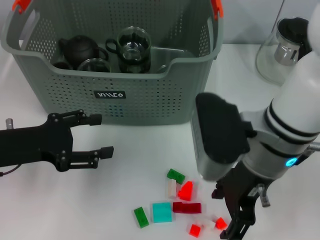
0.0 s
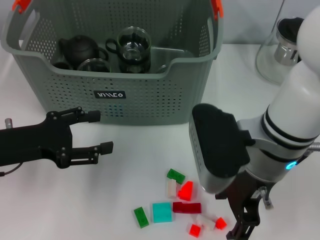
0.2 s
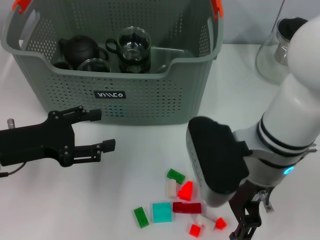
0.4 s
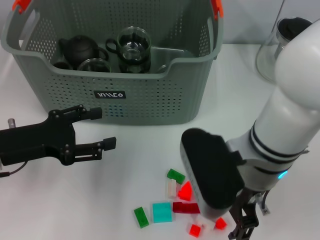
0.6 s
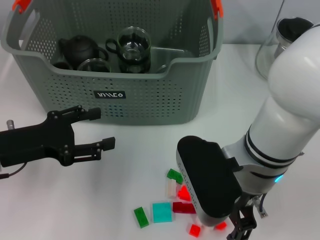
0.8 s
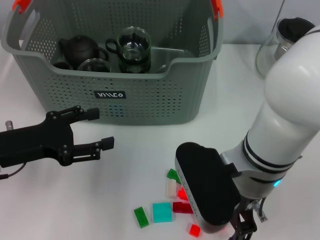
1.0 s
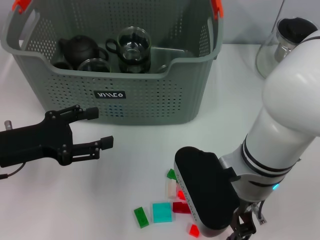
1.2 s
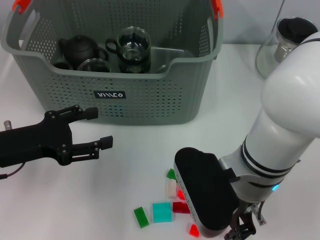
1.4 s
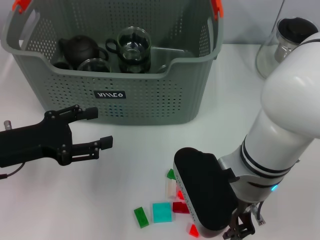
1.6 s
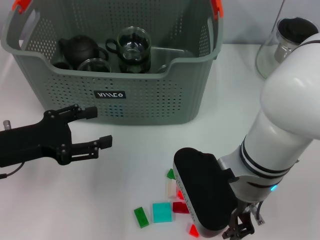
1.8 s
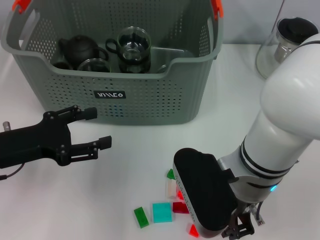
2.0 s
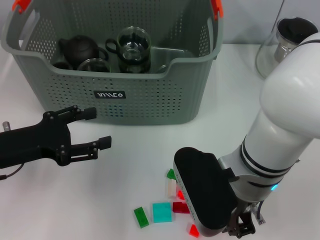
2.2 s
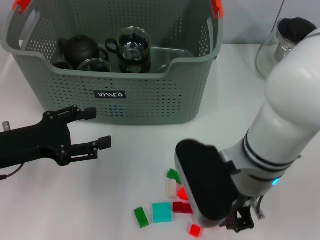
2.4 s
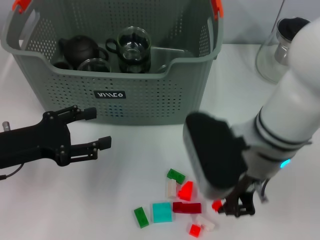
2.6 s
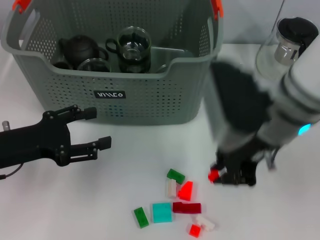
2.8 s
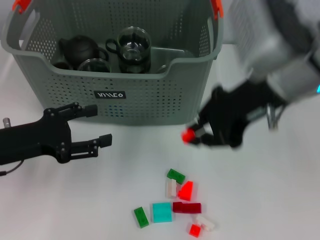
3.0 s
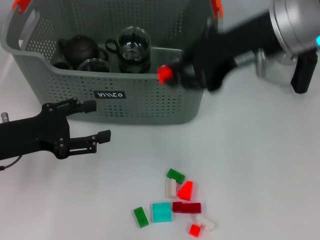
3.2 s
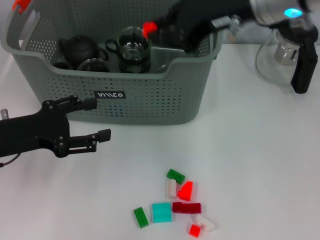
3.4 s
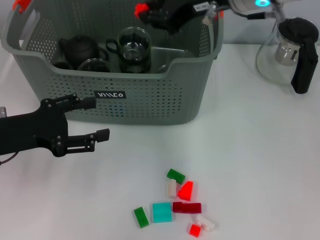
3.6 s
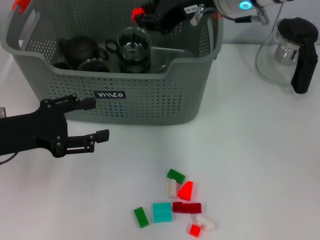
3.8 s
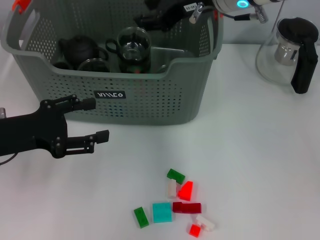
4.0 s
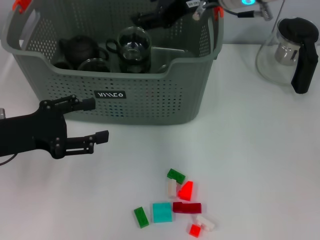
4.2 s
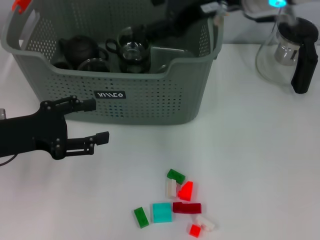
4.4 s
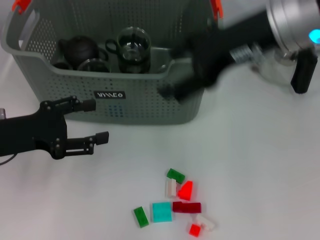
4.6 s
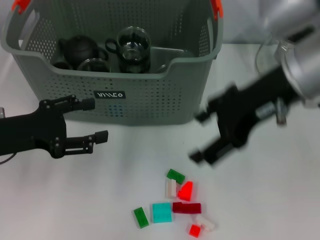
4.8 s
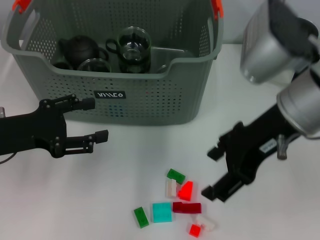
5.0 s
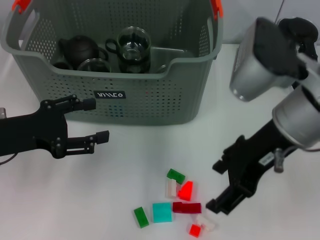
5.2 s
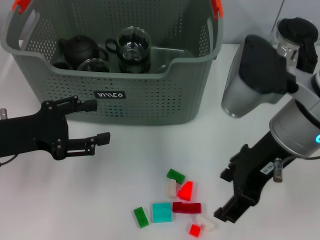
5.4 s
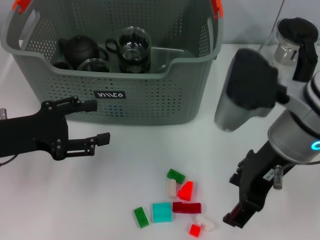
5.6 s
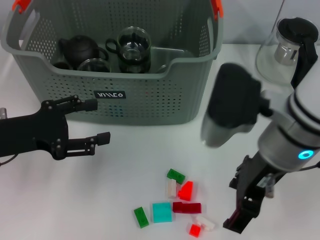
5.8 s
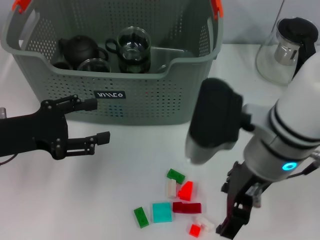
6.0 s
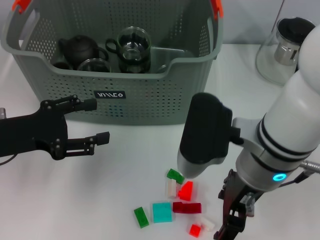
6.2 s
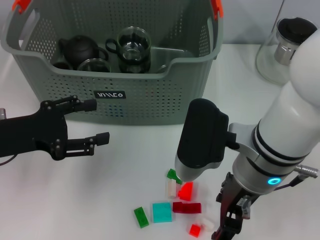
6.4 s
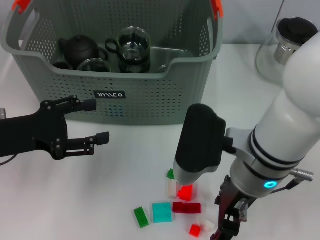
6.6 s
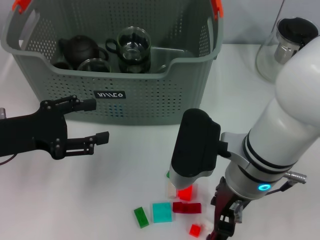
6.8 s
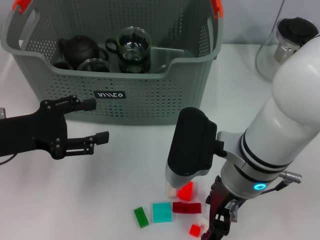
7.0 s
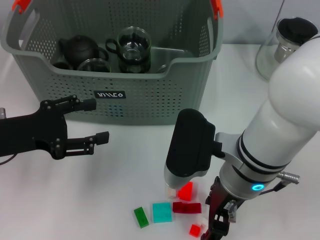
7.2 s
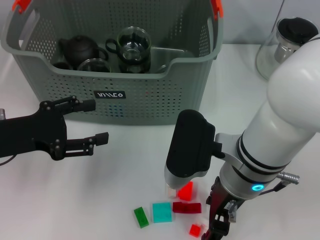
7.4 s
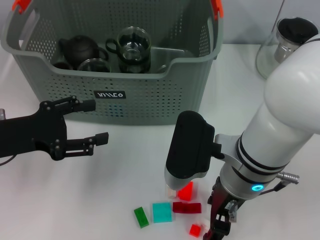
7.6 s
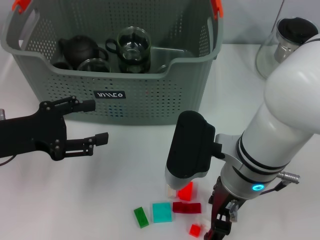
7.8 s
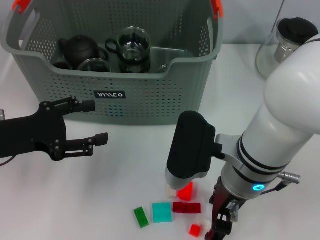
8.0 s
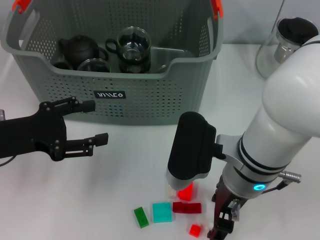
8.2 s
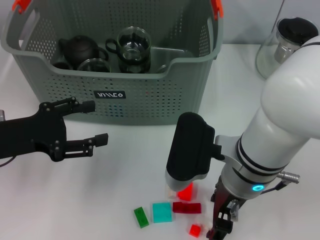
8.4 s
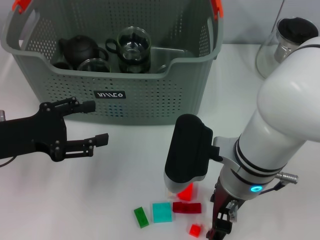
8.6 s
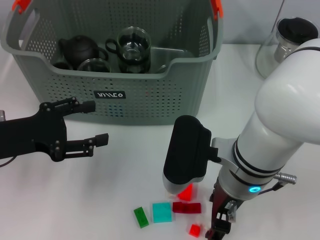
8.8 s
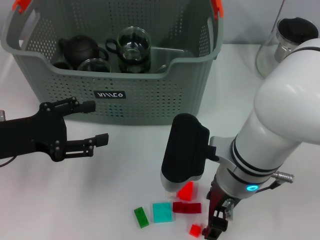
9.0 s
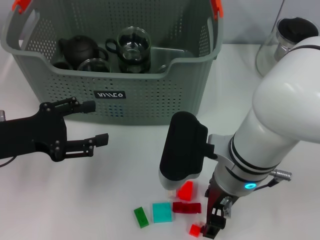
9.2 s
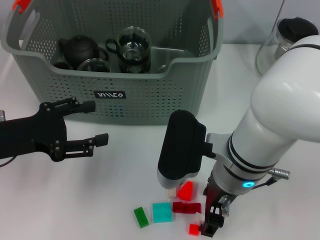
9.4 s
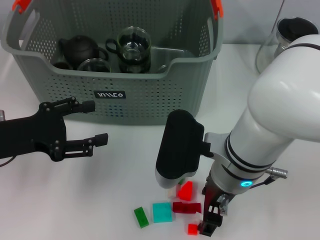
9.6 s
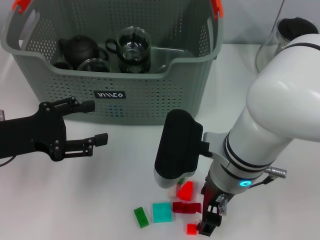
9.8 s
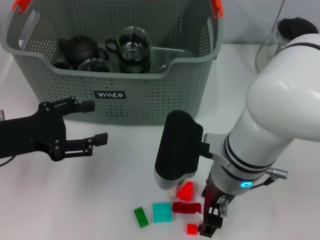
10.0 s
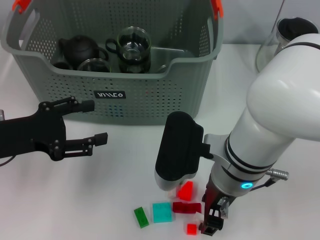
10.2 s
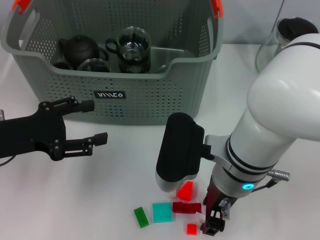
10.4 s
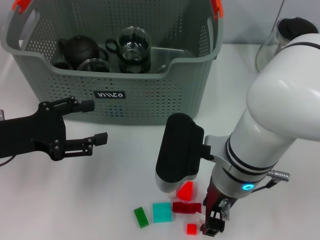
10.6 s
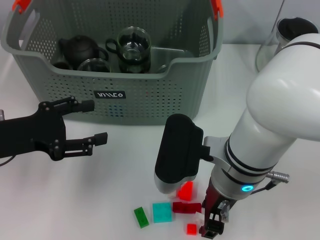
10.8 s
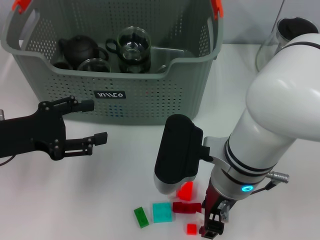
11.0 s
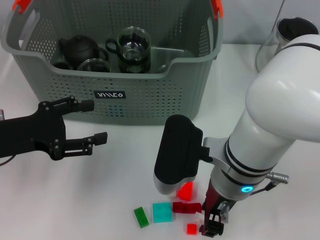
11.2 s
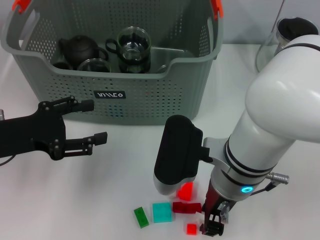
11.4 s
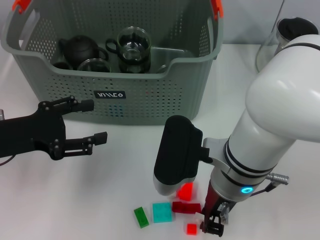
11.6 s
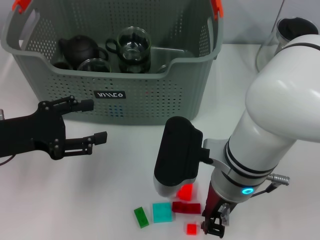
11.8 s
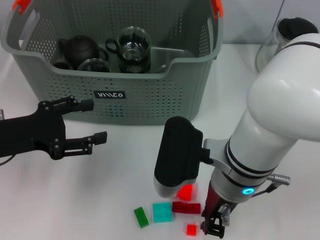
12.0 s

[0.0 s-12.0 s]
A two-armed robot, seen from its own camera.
Task of the whole recording: pick up the teacup on the table and place it into the storage bin, pick up the block on the table and place it into the storage bin.
Step, 0.0 to 2.0 s: Grasp the orange block with right gripper.
Step, 2.4 to 4.0 s: Place the orange block in the storage box with right gripper.
Step, 4.2 to 11.6 s: Grasp the white block with right gripper.
0.0 to 1.6 s: The right gripper closes its fingers.
1.6 to 3.0 s: The right gripper is displaced upward and forward by roughly 15 cm, and closes.
3.0 to 4.4 s: The right gripper heads forward, covering approximately 5 cm, and opens its fingers.
4.4 to 6.0 s: The right gripper goes some 15 cm backward and downward.
6.0 to 7.6 s: The right gripper moves downward, some 5 cm.
7.6 to 10.4 s: Both grippers stay about where they are.
10.4 to 12.0 s: The right gripper closes its fingers.

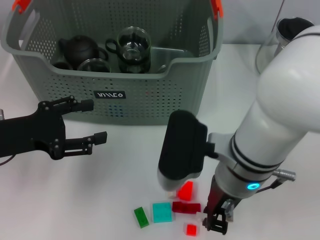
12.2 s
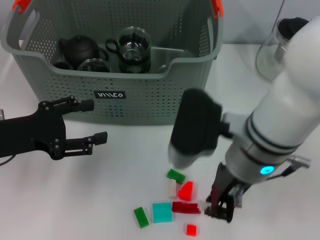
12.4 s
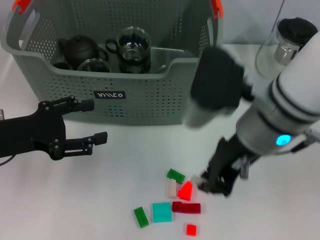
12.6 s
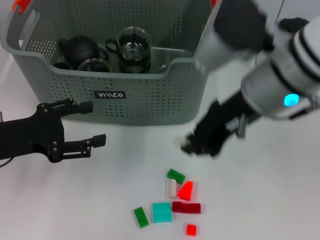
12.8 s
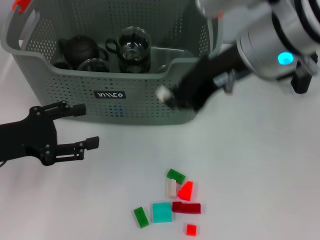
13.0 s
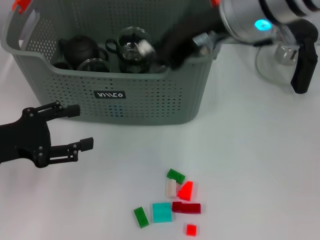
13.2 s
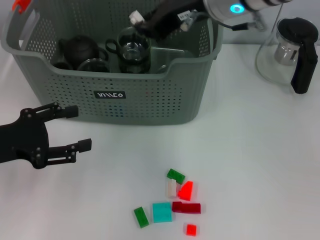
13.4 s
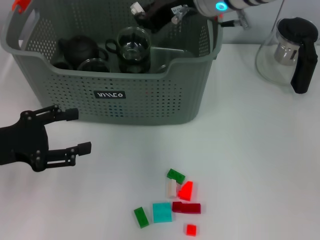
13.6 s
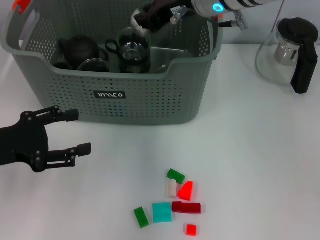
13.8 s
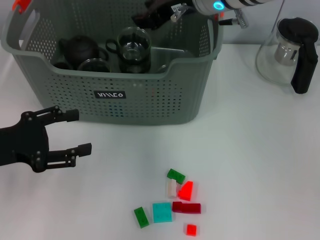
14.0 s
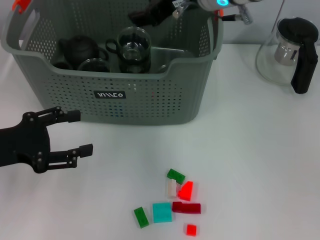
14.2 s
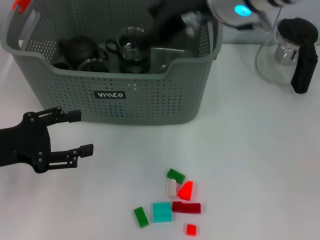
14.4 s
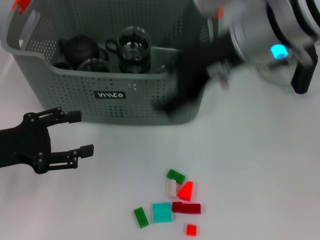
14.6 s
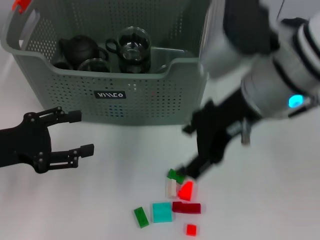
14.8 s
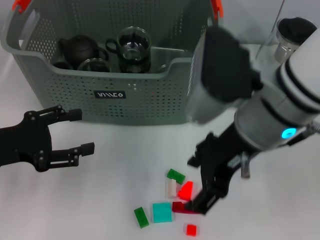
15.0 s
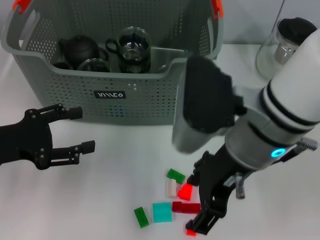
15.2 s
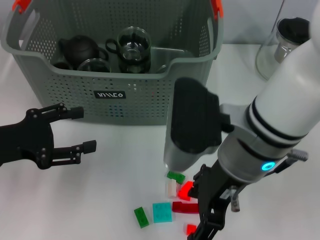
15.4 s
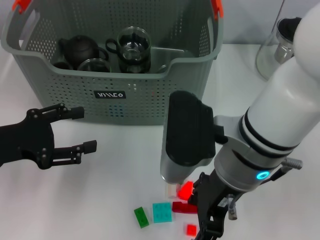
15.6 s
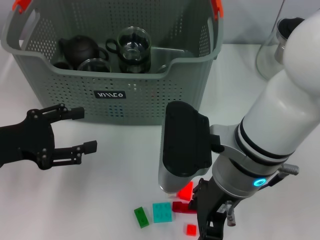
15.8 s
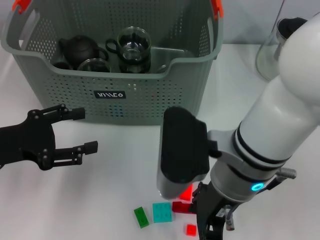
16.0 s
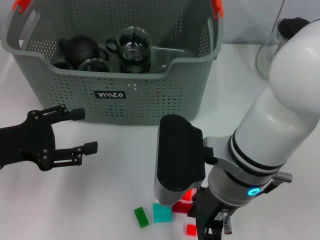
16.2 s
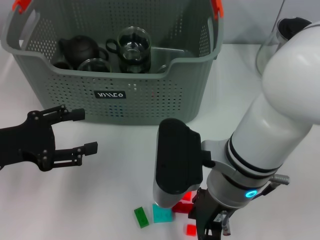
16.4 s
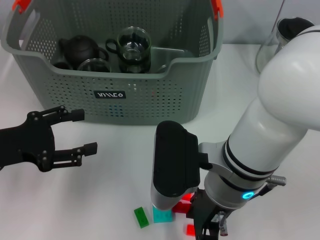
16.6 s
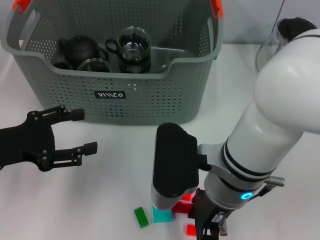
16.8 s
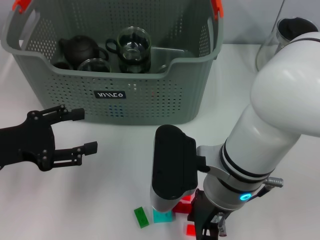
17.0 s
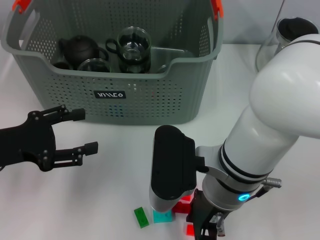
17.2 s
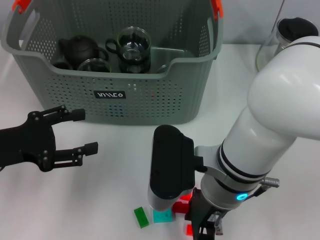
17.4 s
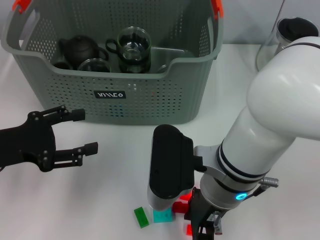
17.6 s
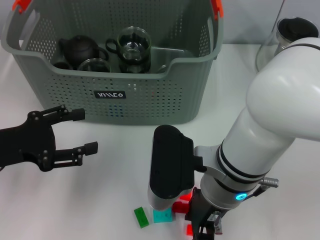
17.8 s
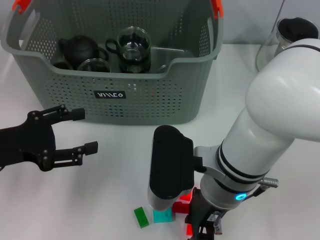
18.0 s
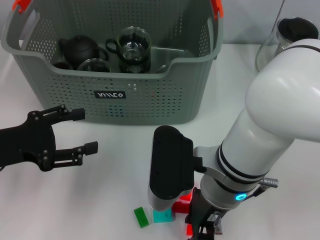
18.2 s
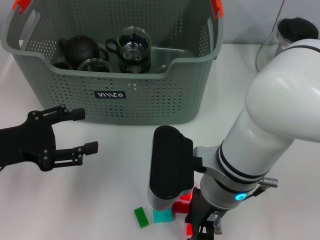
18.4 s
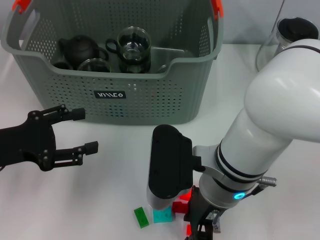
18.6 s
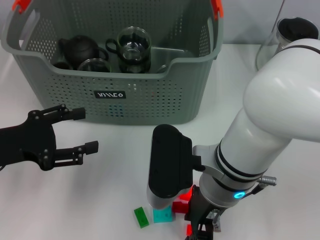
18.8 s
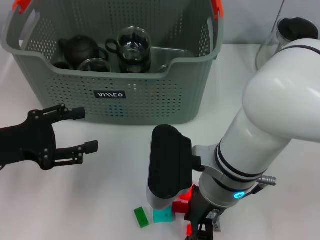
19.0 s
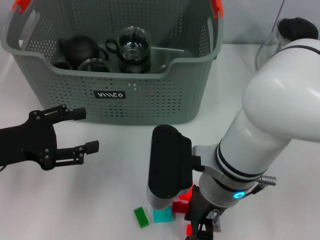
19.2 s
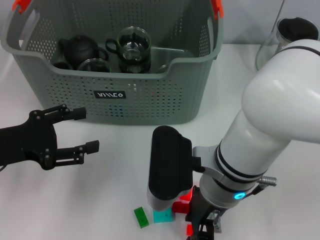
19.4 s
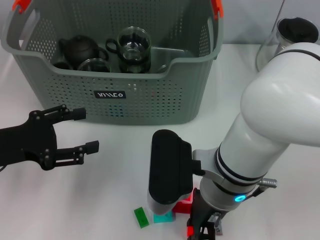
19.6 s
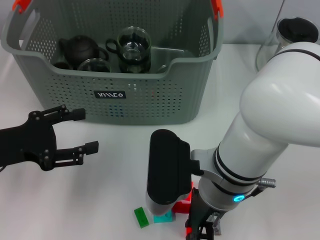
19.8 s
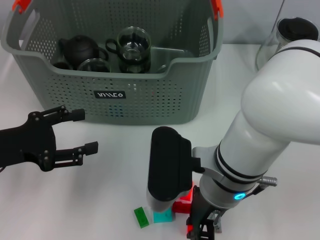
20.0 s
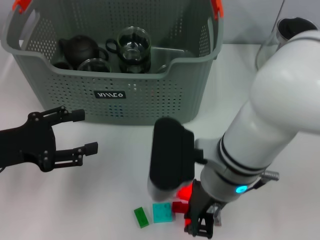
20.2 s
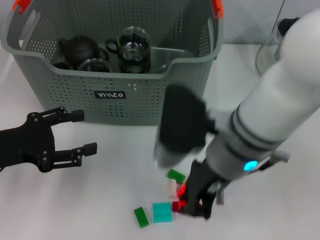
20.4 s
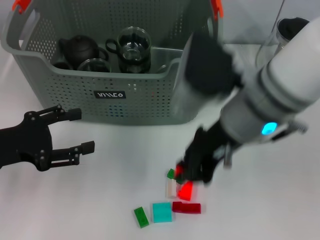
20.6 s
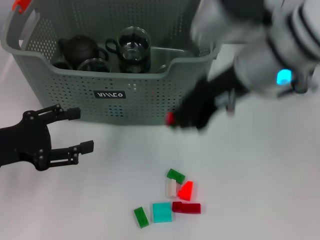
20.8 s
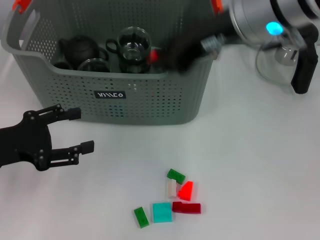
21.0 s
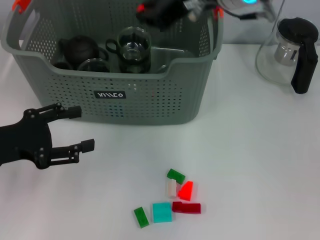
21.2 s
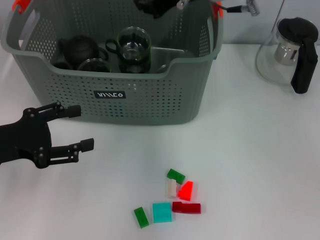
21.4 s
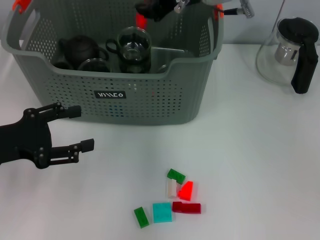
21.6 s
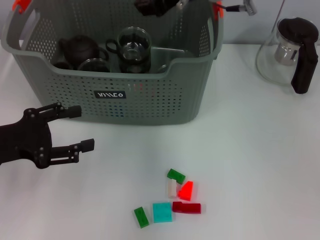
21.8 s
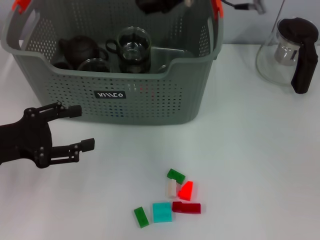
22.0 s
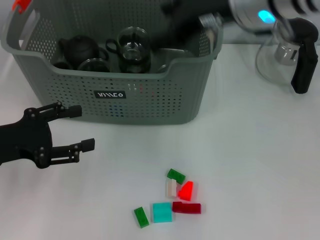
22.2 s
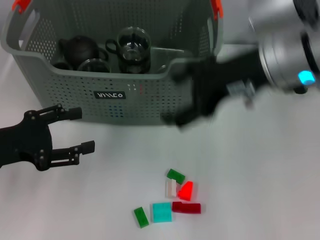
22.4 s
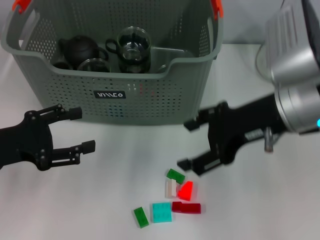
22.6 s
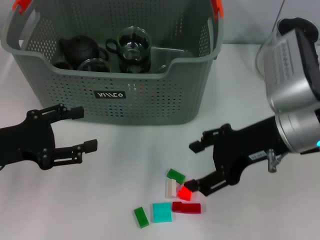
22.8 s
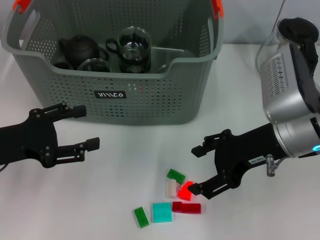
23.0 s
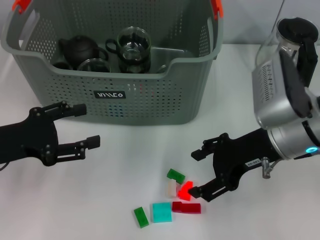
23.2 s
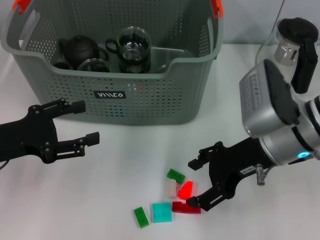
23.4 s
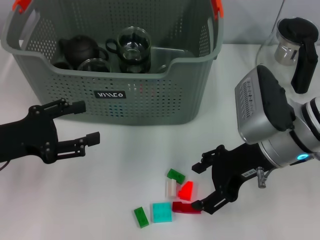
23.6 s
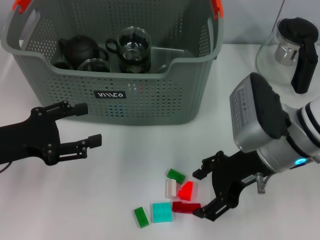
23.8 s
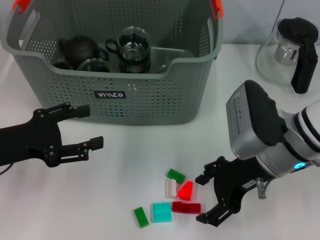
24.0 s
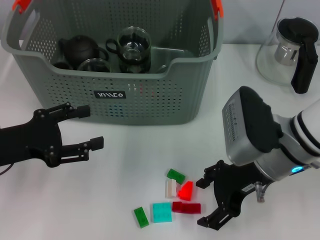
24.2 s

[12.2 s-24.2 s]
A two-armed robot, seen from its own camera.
Task of the whole recording: pick up the teacup on the table and place it into the storage bin, pick up the block on the table and place it into the storage bin.
Step, 12.2 to 14.0 s: Place the white block in the storage box with right gripper.
Step, 14.2 to 19.6 s: Grasp the orange block with right gripper.
Step, 20.0 to 21.6 s: Place the orange block in the storage box with right gripper.
12.2 to 13.8 s: The right gripper is displaced forward and upward by roughly 20 cm.
13.8 to 15.2 s: The right gripper goes roughly 15 cm backward, and opens up.
15.2 to 16.6 s: The right gripper heads downward, covering some 5 cm.
16.6 to 18.2 s: The right gripper closes its fingers.
18.2 to 19.8 s: Neither gripper changes place.
19.8 to 21.2 s: The right gripper goes about 20 cm upward and forward.
21.2 to 22.6 s: The right gripper is displaced backward, downward and to the right by approximately 15 cm, and opens.
22.6 to 24.2 s: The right gripper goes approximately 10 cm downward.
